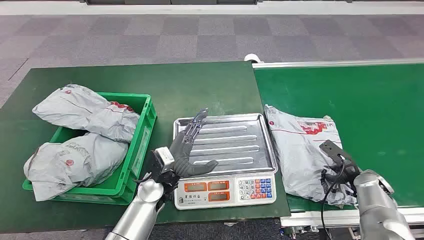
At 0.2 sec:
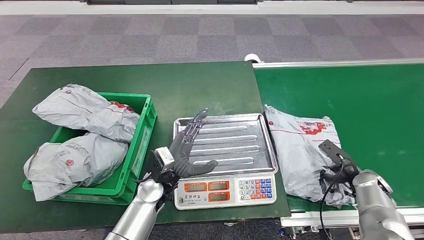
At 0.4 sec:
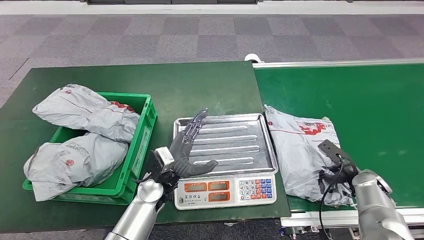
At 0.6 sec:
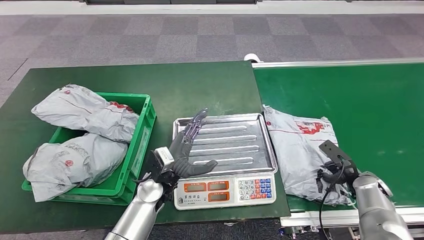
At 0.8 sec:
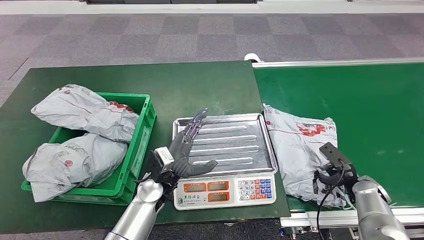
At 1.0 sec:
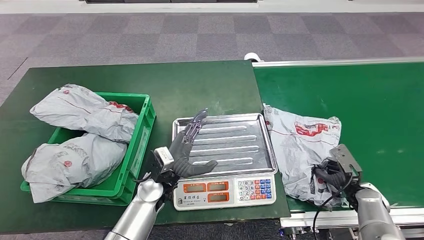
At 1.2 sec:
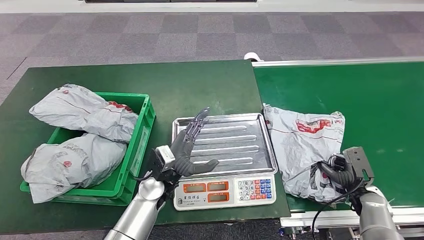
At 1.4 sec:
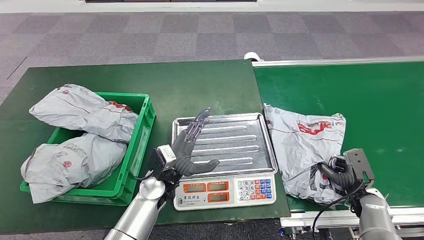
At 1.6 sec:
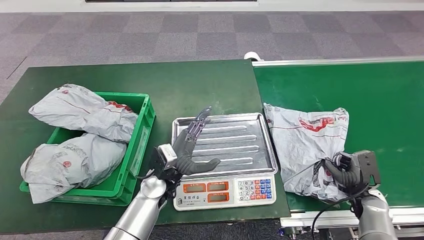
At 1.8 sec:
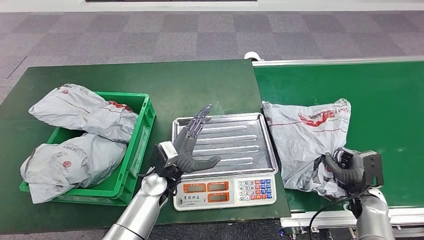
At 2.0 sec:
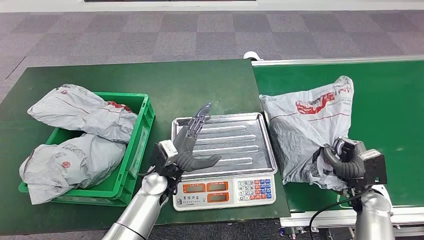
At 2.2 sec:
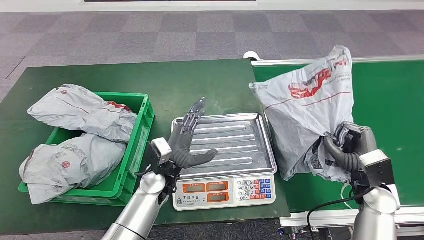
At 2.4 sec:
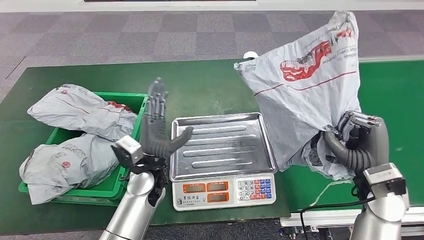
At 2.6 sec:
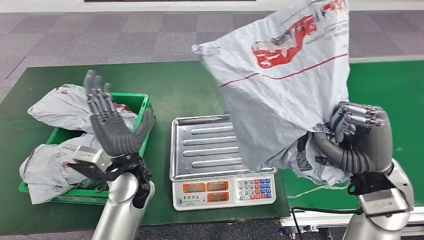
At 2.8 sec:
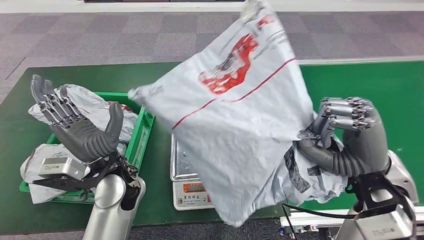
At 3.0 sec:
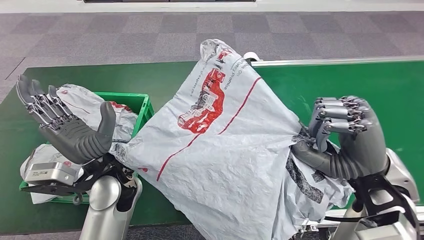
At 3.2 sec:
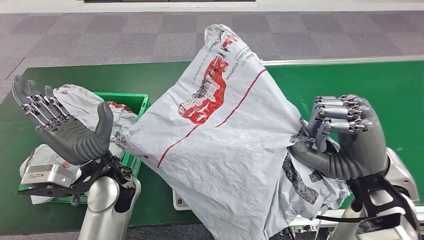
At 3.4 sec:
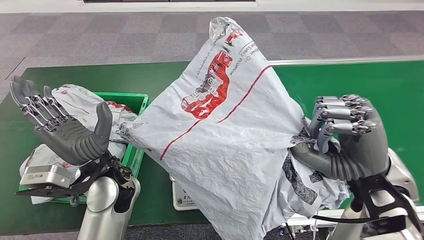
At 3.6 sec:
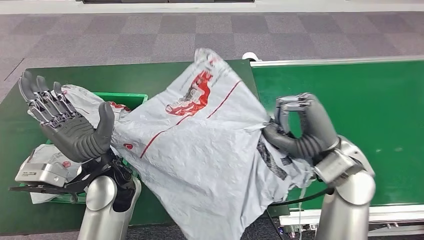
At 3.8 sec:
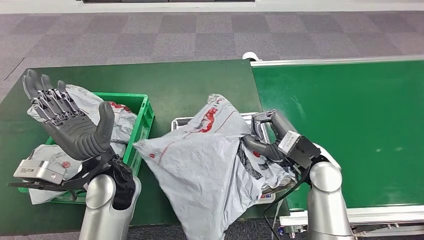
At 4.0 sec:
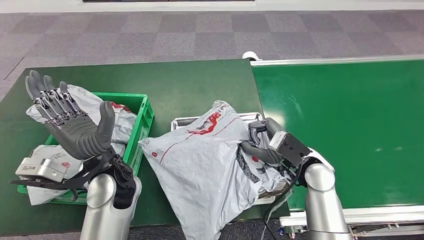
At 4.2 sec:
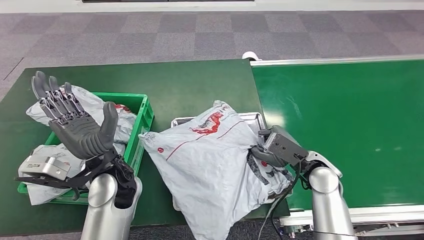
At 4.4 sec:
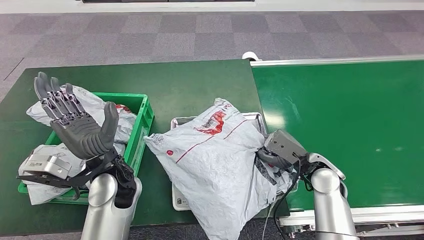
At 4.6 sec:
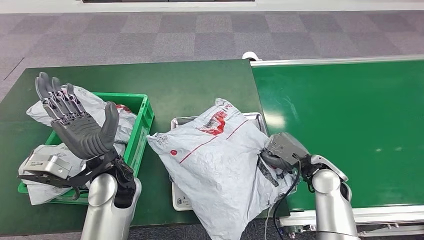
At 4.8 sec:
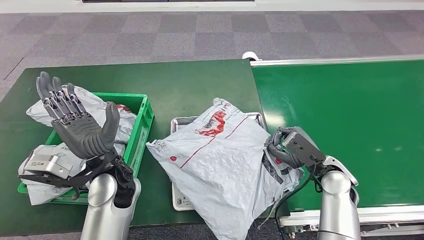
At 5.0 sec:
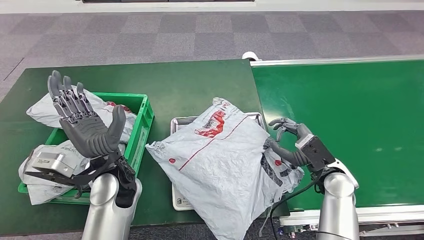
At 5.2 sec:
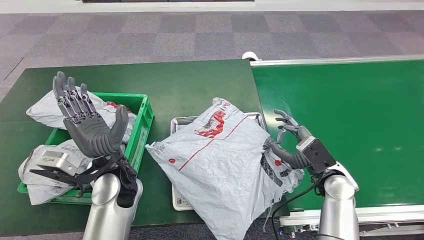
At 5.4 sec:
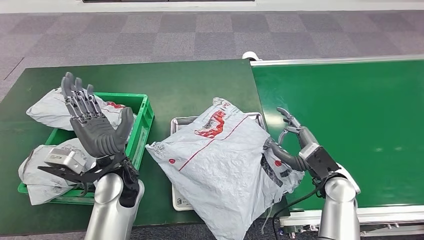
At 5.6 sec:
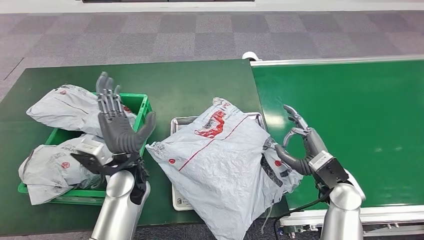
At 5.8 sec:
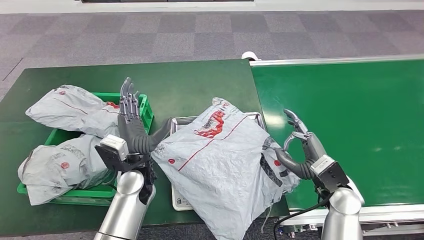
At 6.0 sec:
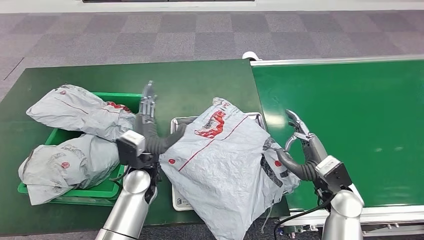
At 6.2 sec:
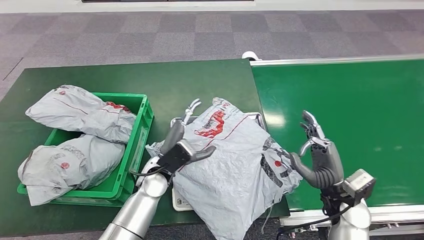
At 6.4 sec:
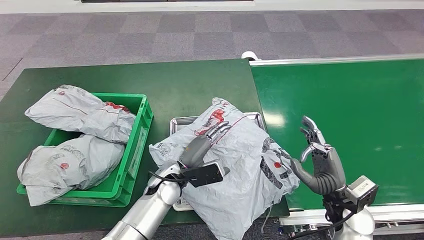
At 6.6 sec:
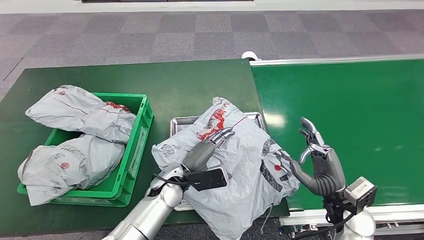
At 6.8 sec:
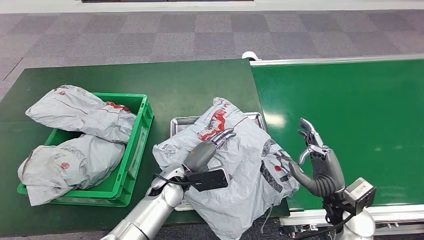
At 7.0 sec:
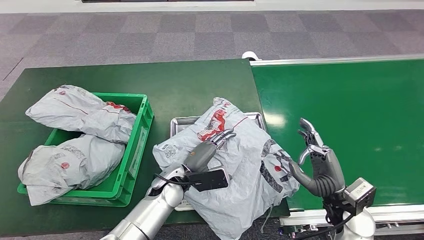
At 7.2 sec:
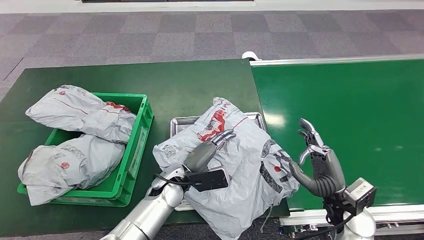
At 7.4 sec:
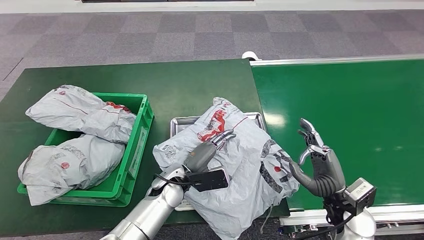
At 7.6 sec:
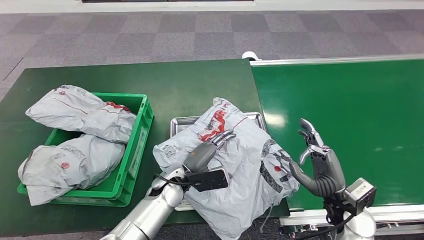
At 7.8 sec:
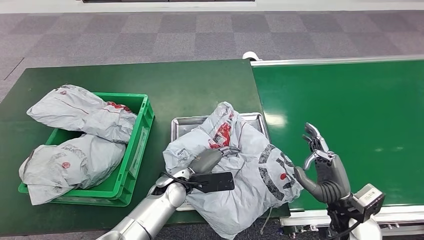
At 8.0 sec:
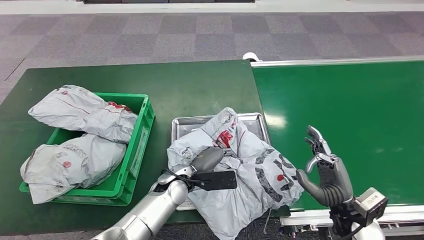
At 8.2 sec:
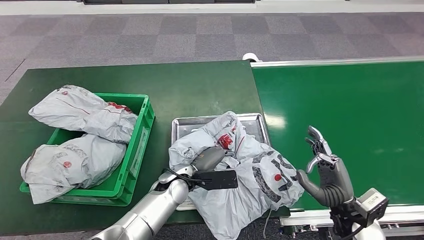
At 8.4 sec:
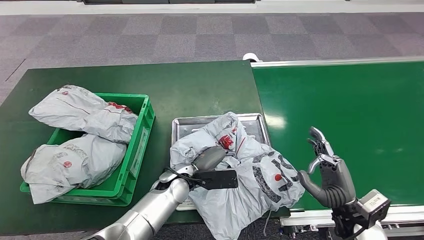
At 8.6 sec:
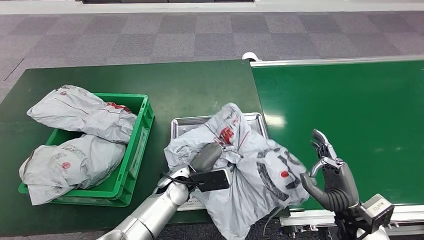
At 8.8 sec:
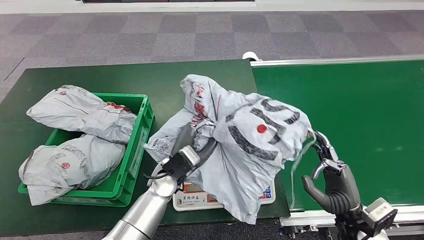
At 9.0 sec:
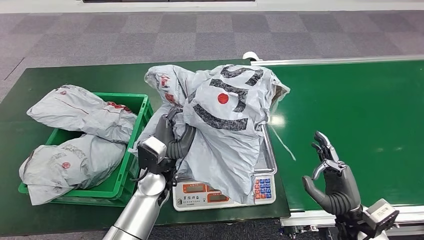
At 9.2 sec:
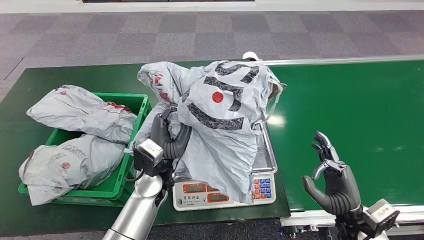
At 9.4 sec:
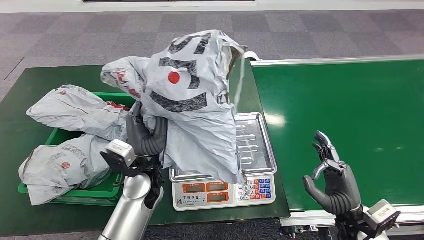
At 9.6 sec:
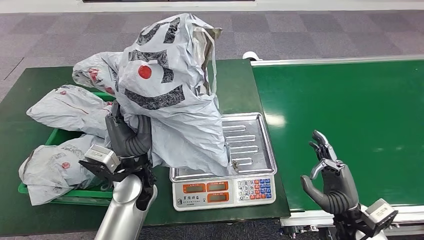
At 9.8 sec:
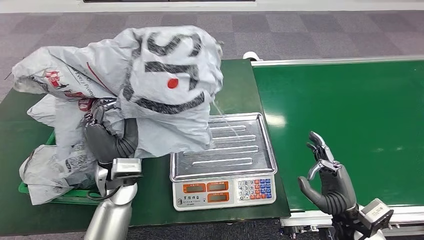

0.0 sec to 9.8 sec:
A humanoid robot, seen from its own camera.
Task of the whole recording: Weigh the package on the weighing device and place it in the left basket.
Step, 0.0 sec to 2.8 sec: Pick up the package from the conveyor belt.
Step, 3.0 sec to 7.0 sec: Place the package onto the inbound machine.
Step, 8.0 sec to 9.2 sec: Pick up the package from the inbound machine.
5.6 sec to 7.0 sec: The right hand changes place by some 5 cm. Meanwhile the left hand is displaced downward and to the right by some 10 cm.

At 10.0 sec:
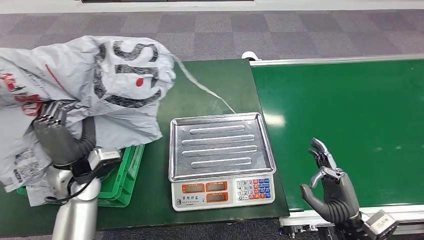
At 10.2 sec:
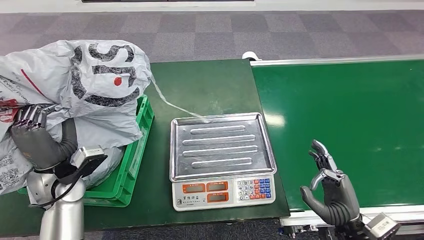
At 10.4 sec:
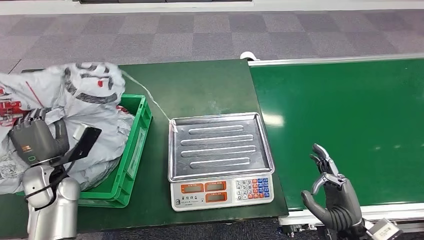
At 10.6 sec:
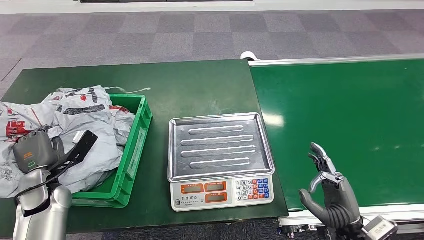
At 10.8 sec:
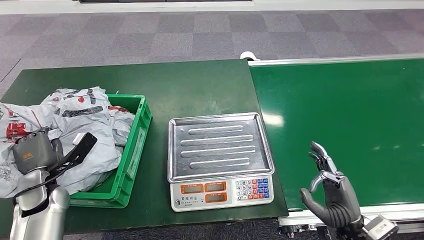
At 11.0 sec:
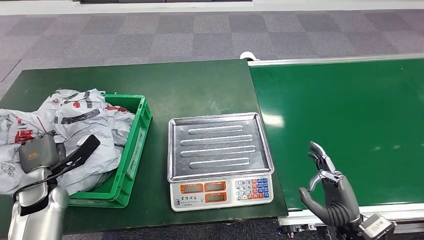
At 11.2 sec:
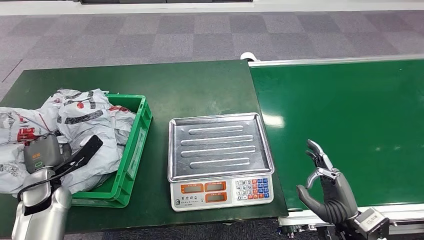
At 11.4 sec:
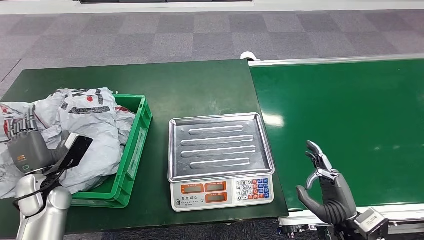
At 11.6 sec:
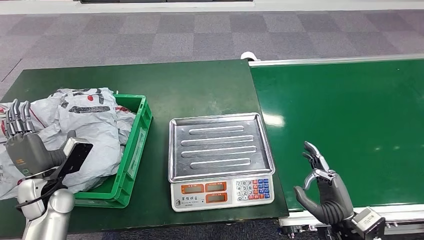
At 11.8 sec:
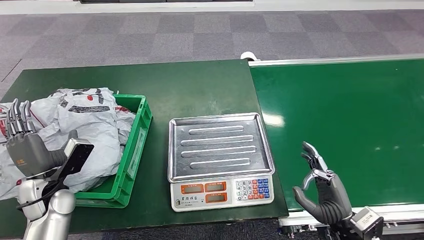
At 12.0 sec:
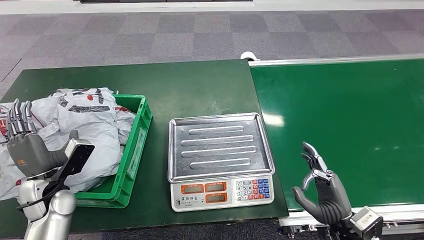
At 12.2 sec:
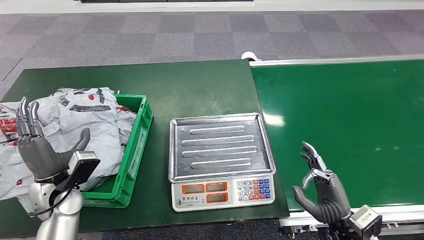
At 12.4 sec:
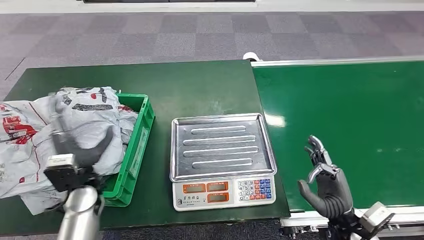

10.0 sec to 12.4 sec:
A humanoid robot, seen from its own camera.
Task of the whole recording: Weigh the package on the weighing device and place it in the left basket.
Step, 10.0 sec to 12.2 sec: Place the package into the parcel locker.
